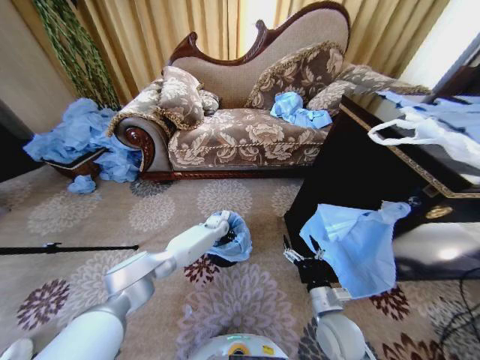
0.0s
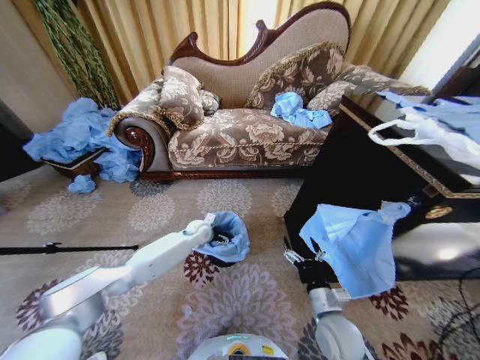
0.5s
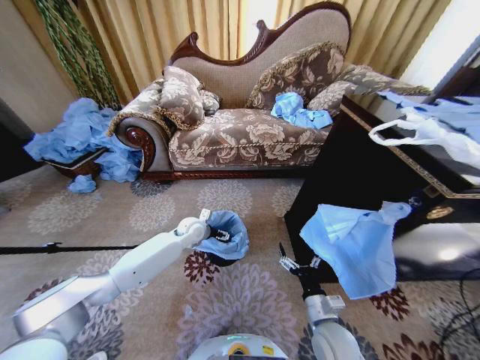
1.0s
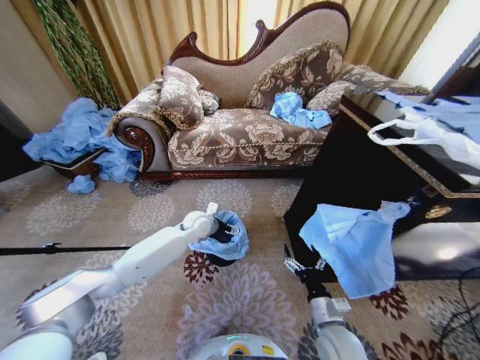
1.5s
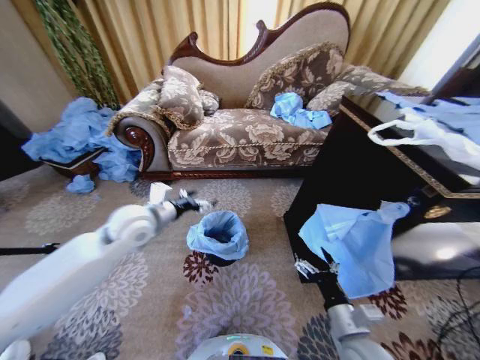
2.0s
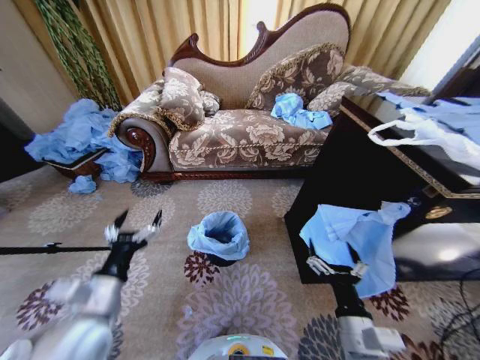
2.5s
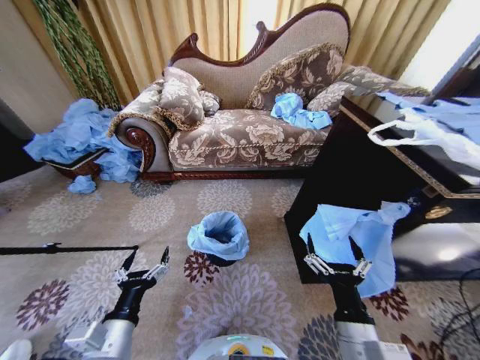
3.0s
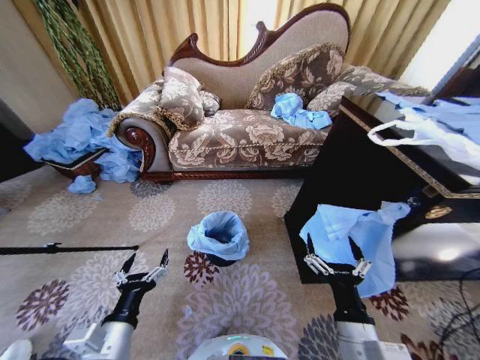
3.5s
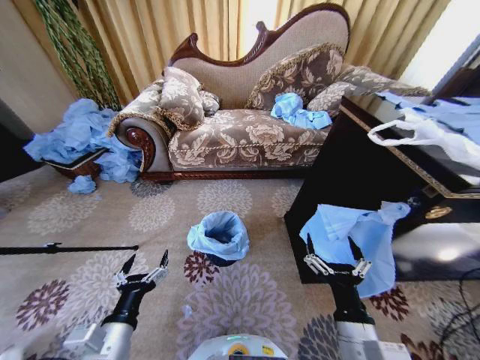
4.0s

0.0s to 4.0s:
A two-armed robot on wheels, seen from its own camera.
Task of the whole recording: Place a garbage bag over the trash bin.
0.0s to 2.0s: The left gripper heads upward, backward and to the left, covering approximately 40 cm. Meanwhile the right gripper goes some 5 cm backward and upward.
2.0s to 4.0s: The left gripper shifts roughly 30 cm backward and downward. The right gripper moves upward, about 5 cm.

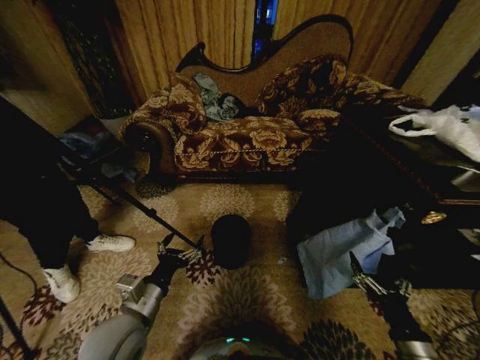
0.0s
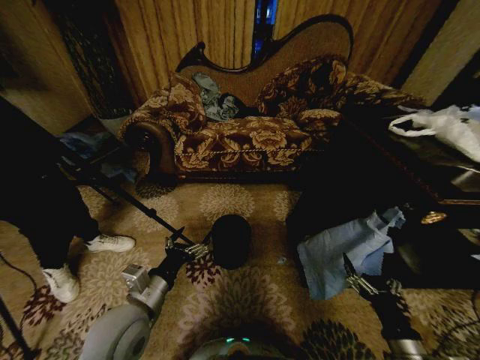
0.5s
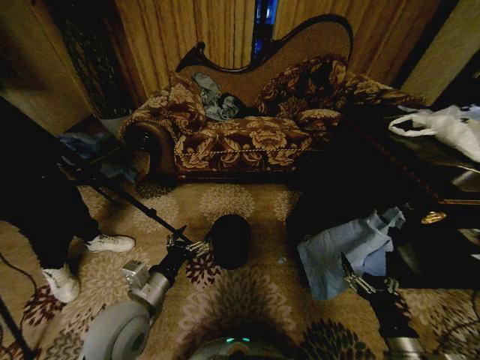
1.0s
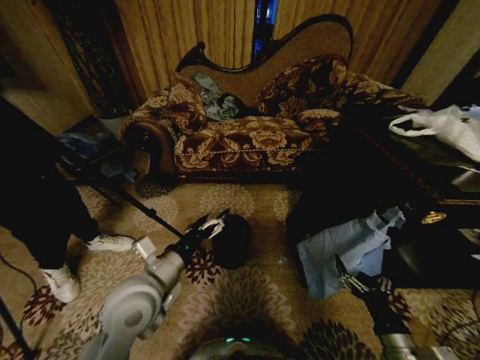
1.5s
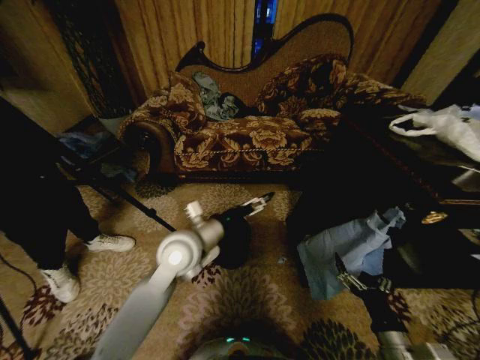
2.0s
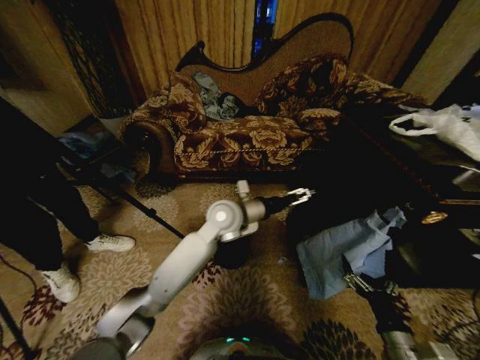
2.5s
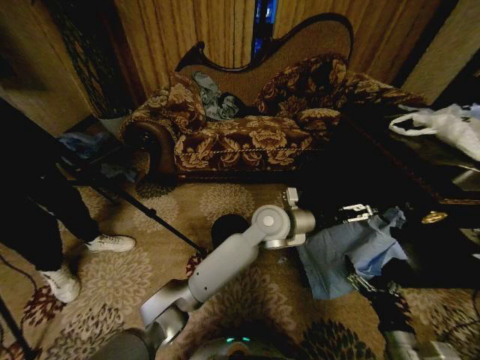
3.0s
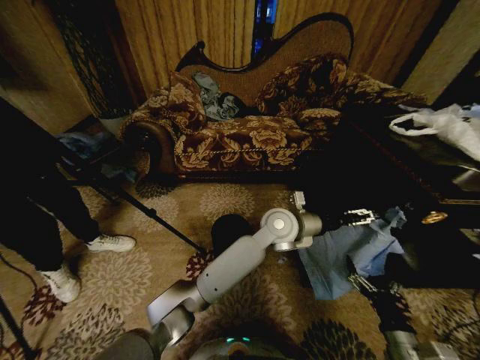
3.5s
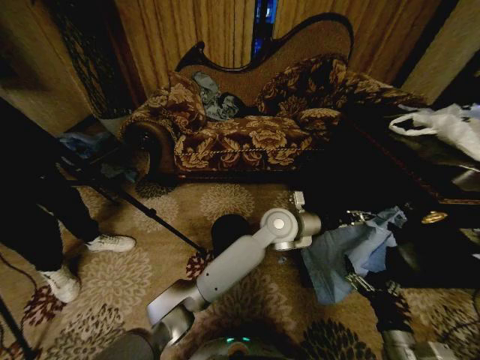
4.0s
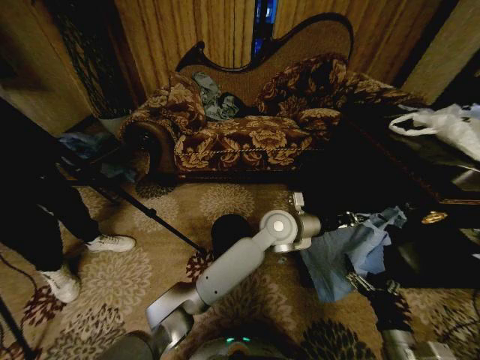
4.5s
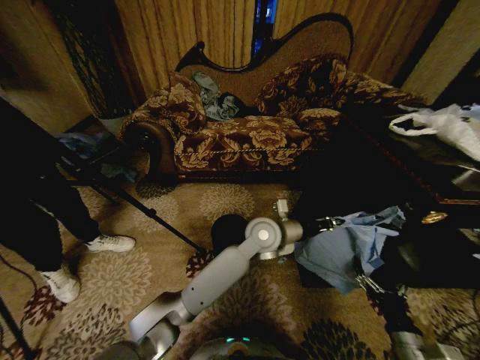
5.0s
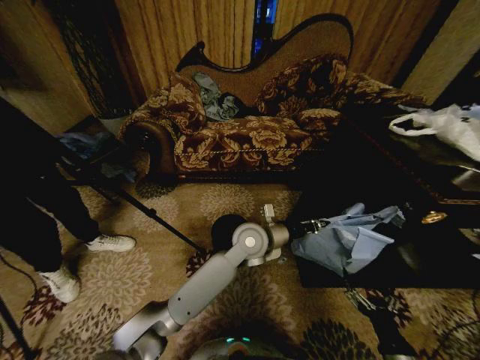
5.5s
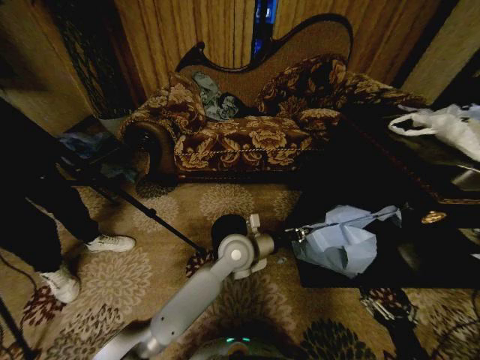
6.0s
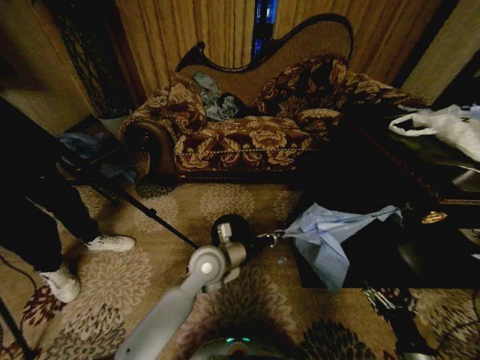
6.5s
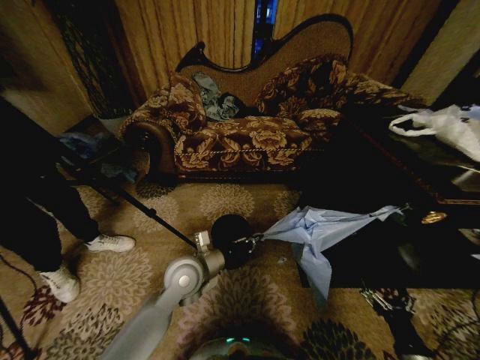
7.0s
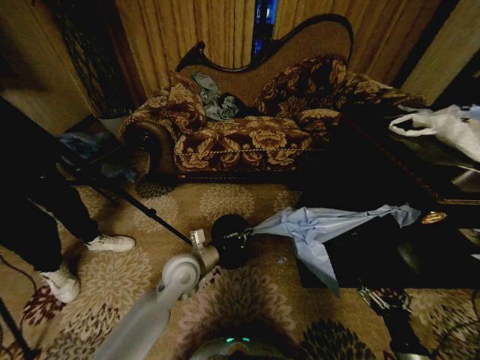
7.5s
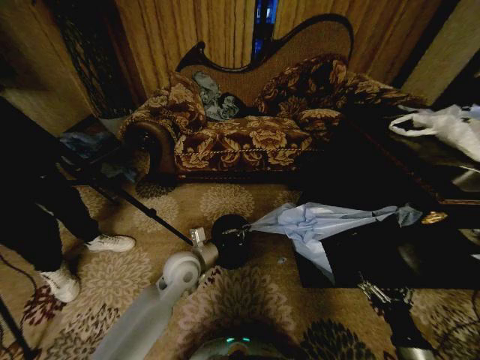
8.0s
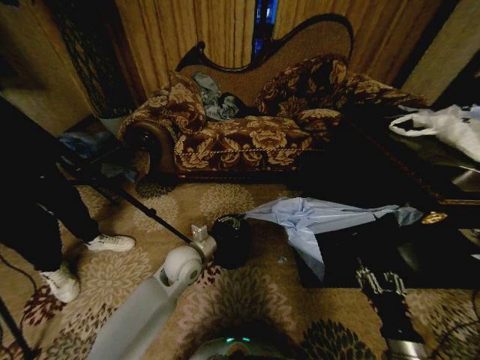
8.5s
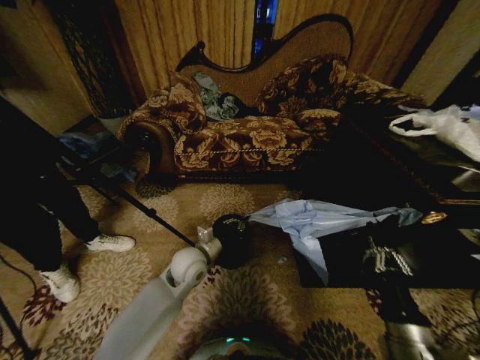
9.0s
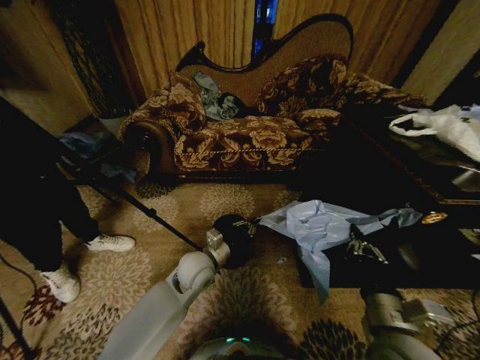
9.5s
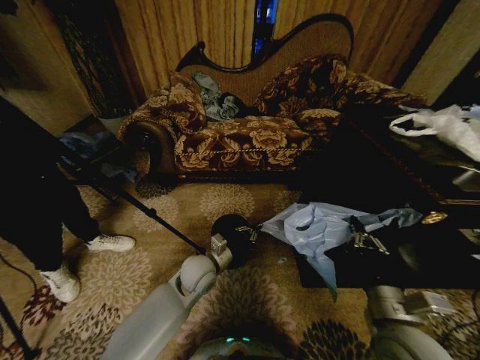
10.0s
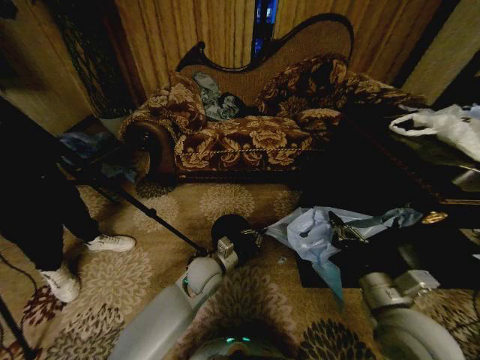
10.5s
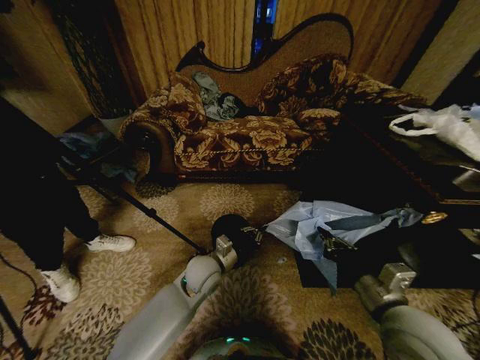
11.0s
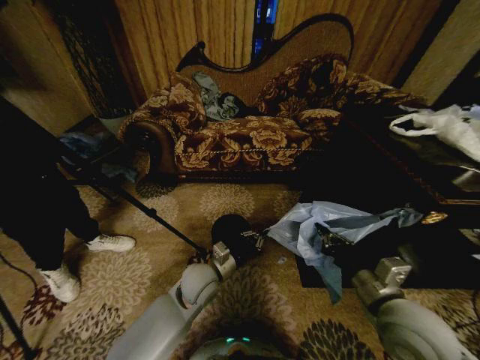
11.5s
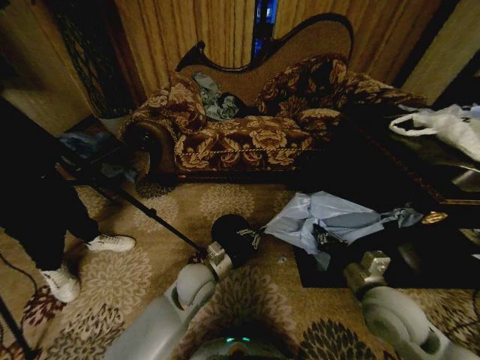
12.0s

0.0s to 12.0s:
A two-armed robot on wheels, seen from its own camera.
Task of the whole recording: Place a garbage bag over the trash bin.
2.0s to 4.0s: The left gripper is displaced to the right by approximately 25 cm, and closes up.
4.0s to 6.0s: The left gripper is displaced to the left and downward by some 10 cm, and closes. The right gripper heads backward, covering roughly 5 cm.
6.0s to 8.0s: The left gripper is displaced to the left by some 15 cm.
8.0s to 10.0s: The right gripper shifts roughly 20 cm upward, to the left and forward, and closes up.
10.0s to 12.0s: The right gripper goes approximately 5 cm forward.

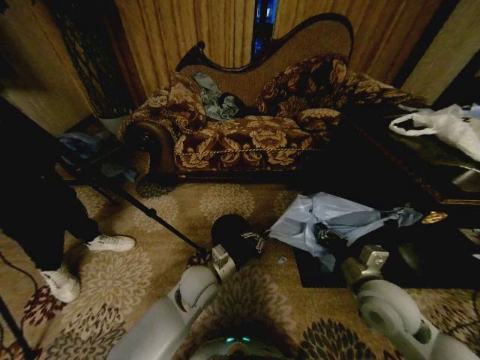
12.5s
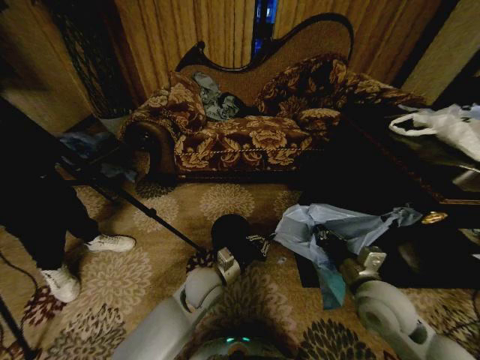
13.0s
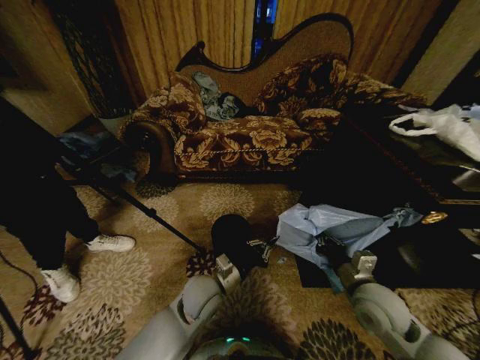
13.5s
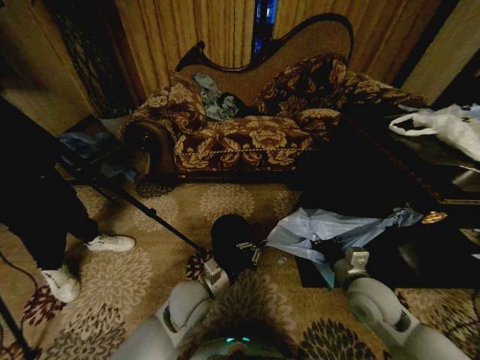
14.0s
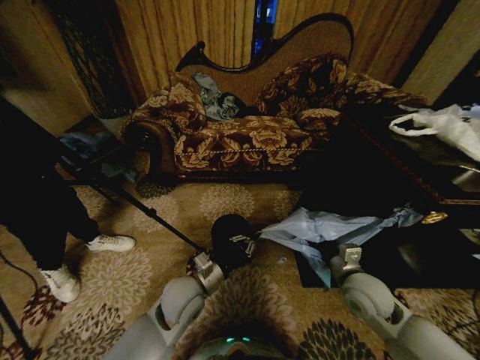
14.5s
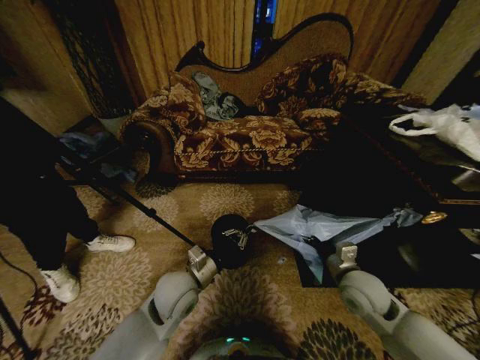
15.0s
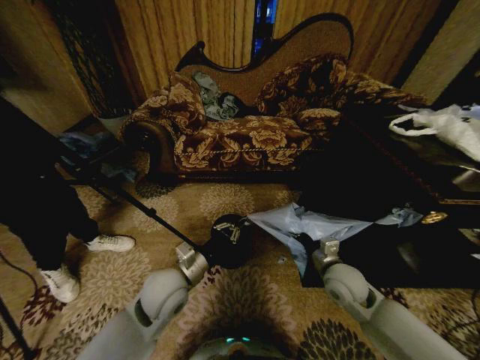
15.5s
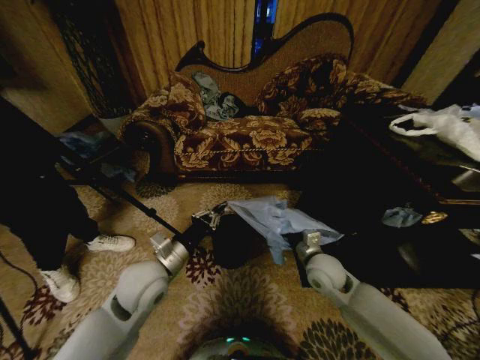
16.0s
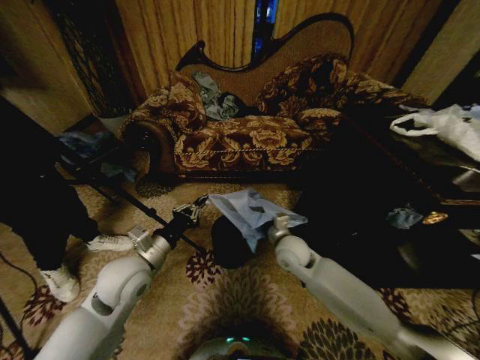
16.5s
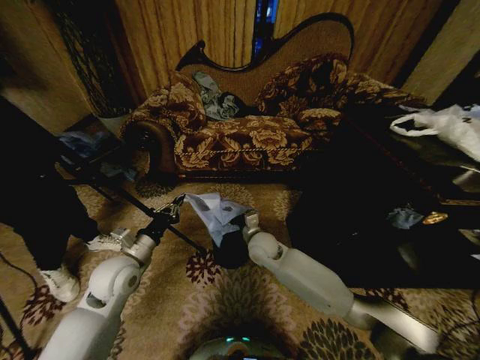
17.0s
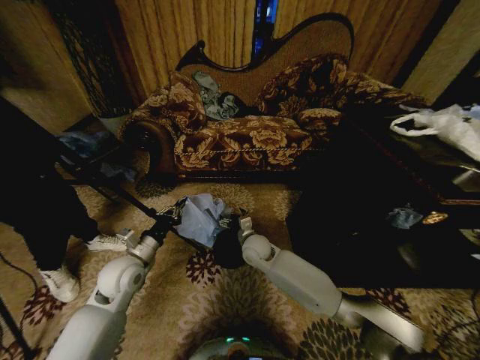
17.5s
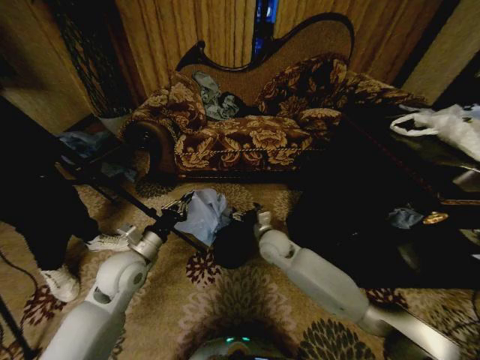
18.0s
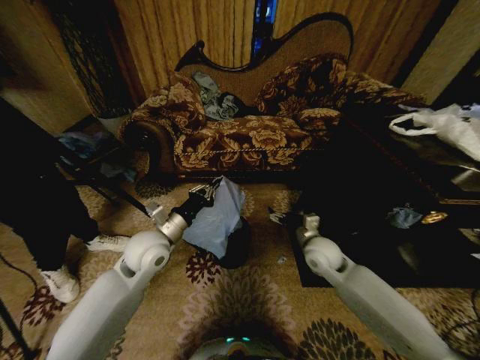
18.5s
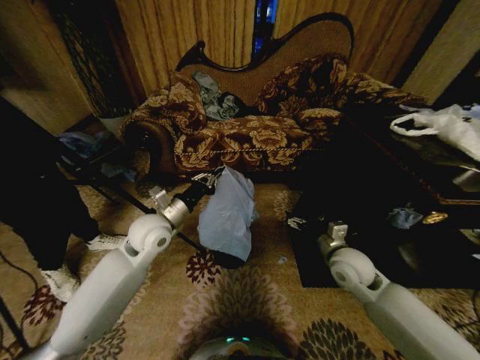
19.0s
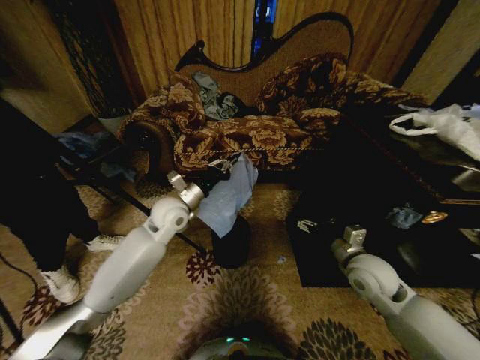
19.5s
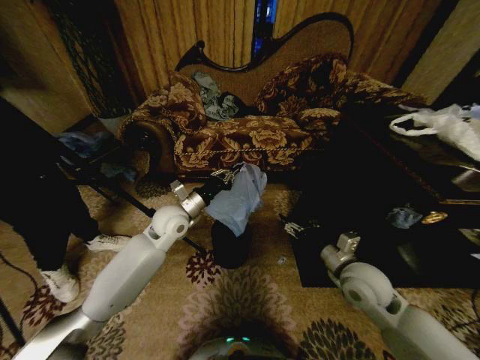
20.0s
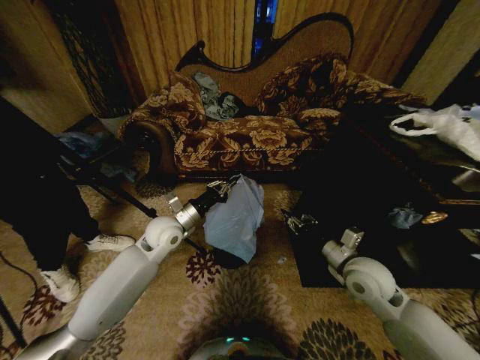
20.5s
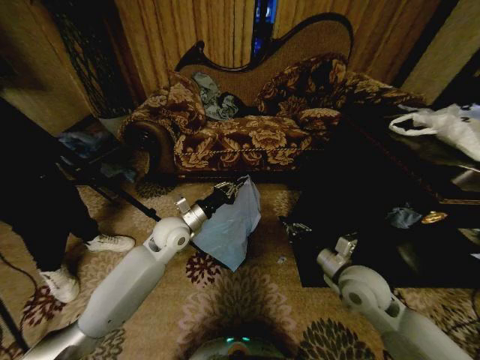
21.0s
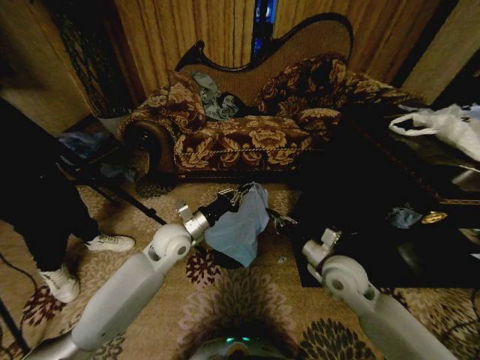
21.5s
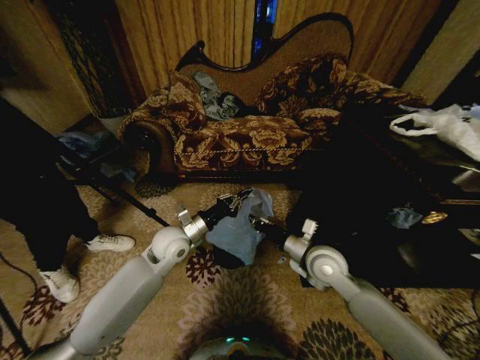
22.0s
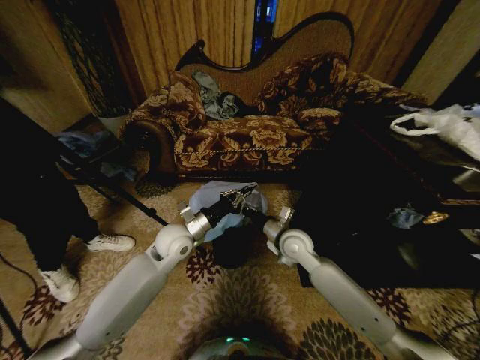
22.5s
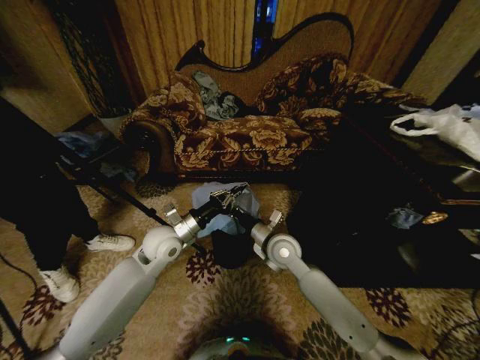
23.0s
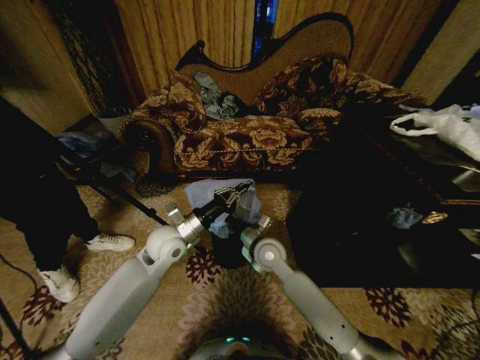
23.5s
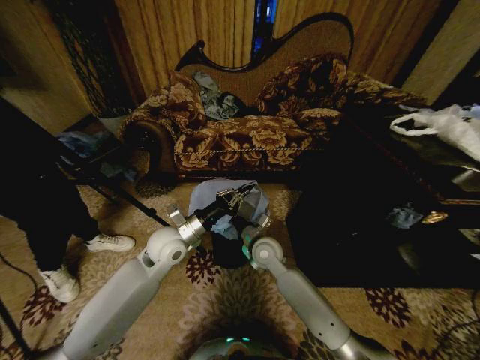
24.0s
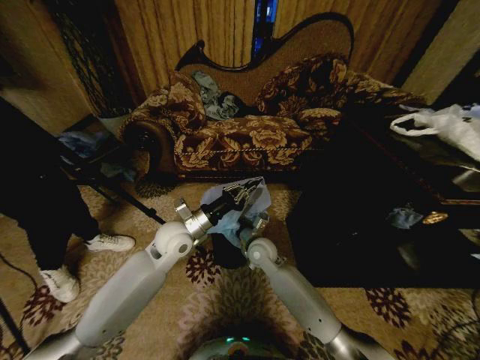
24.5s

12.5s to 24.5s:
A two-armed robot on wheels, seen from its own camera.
Task of the whole recording: Place a garbage bag over the trash bin.
12.5s to 14.5s: The right gripper ends up approximately 5 cm from where it was, and opens.
14.5s to 16.5s: The left gripper shifts approximately 15 cm to the left and upward, while the right gripper shifts roughly 20 cm to the left and forward.
16.5s to 18.5s: The left gripper travels forward by about 5 cm. The right gripper shifts approximately 10 cm to the right.
18.5s to 20.5s: The right gripper shifts approximately 10 cm backward and to the right, and closes. Meanwhile the left gripper moves forward, roughly 5 cm.
20.5s to 22.5s: The right gripper heads to the left and forward, covering roughly 15 cm, and closes its fingers.
22.5s to 24.5s: The right gripper is displaced to the left and downward by some 10 cm.
